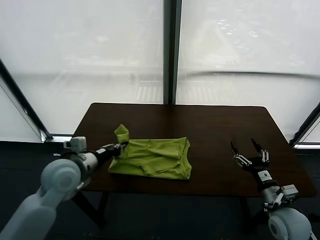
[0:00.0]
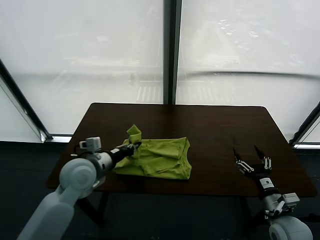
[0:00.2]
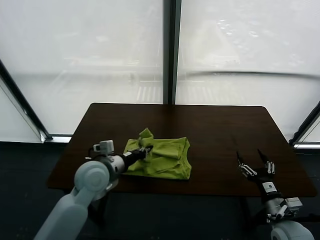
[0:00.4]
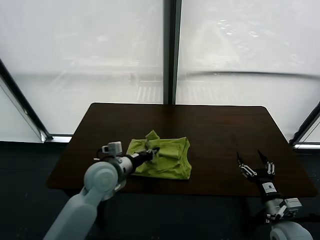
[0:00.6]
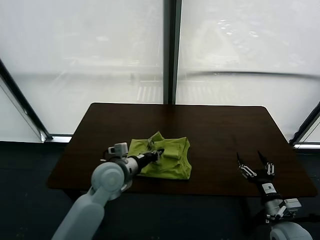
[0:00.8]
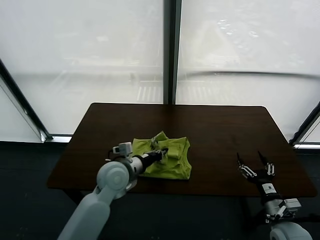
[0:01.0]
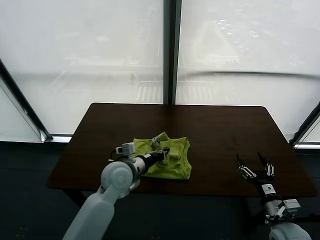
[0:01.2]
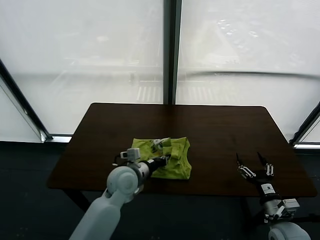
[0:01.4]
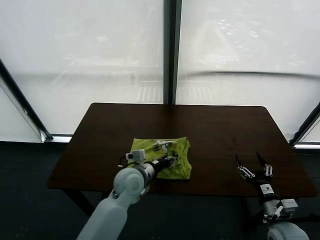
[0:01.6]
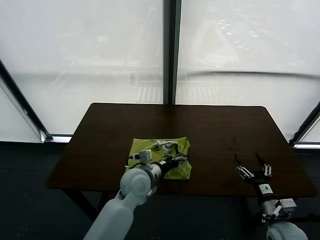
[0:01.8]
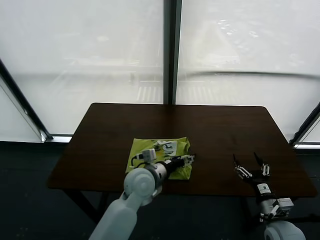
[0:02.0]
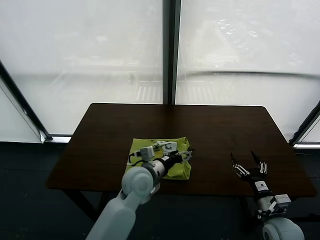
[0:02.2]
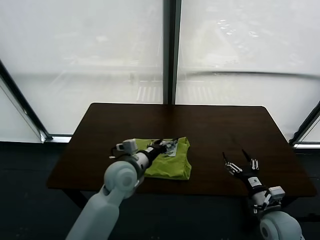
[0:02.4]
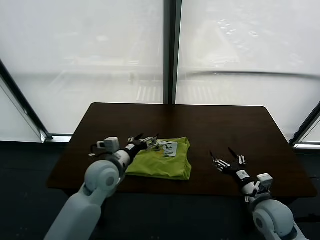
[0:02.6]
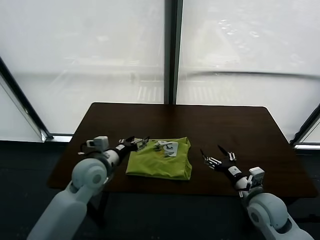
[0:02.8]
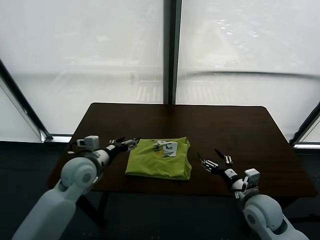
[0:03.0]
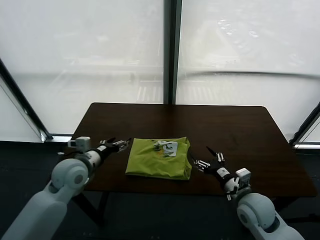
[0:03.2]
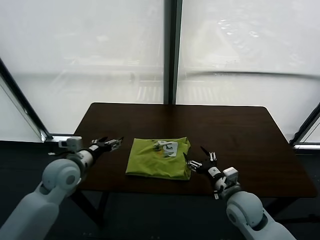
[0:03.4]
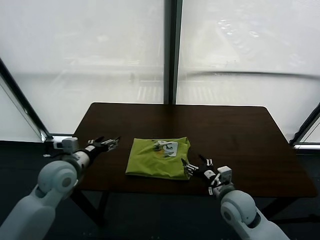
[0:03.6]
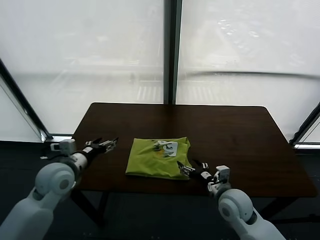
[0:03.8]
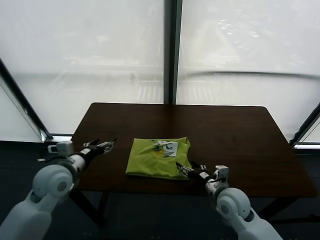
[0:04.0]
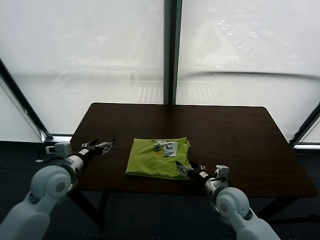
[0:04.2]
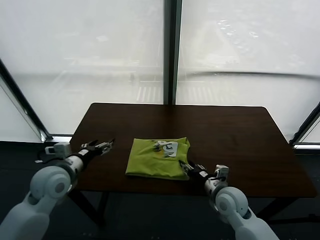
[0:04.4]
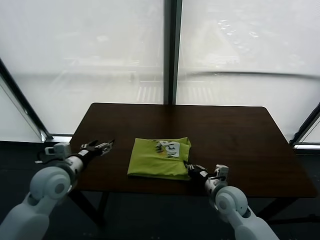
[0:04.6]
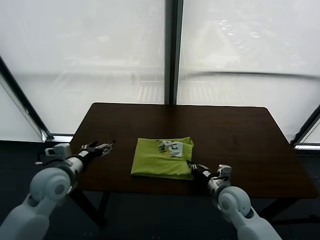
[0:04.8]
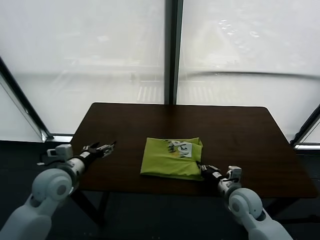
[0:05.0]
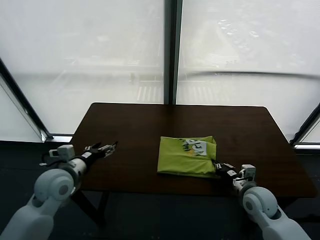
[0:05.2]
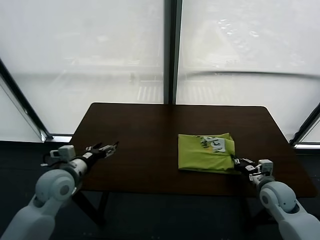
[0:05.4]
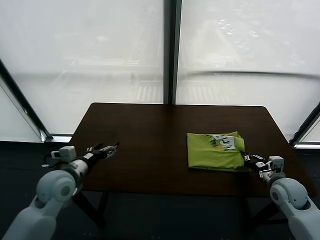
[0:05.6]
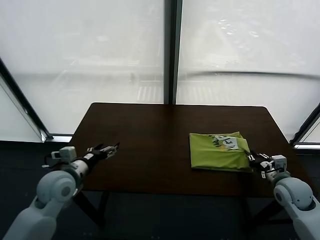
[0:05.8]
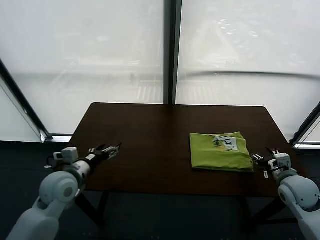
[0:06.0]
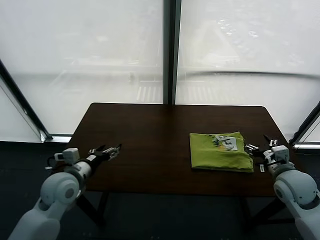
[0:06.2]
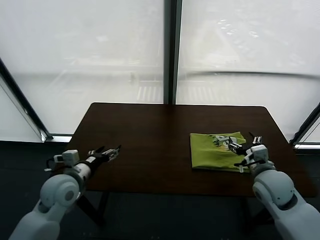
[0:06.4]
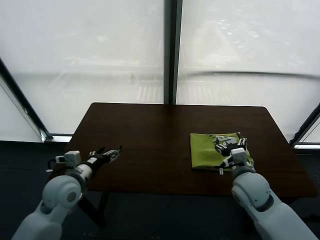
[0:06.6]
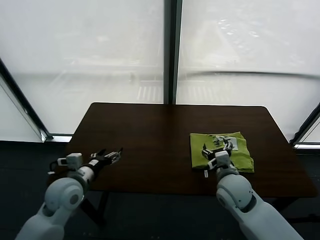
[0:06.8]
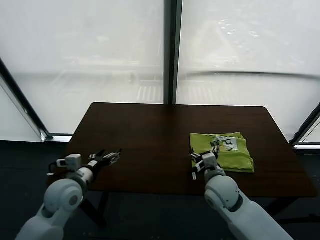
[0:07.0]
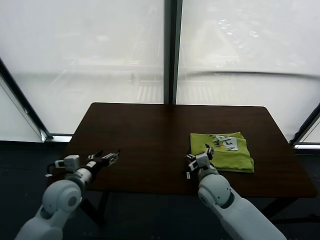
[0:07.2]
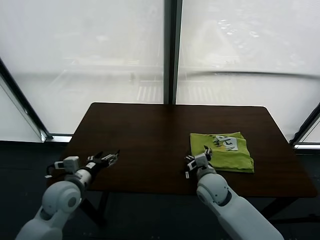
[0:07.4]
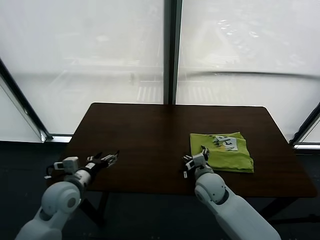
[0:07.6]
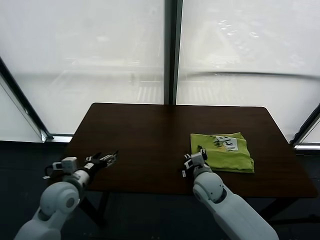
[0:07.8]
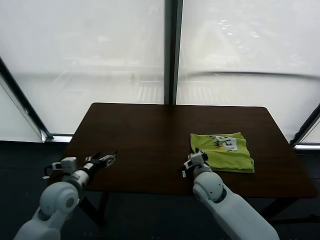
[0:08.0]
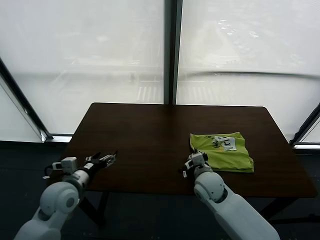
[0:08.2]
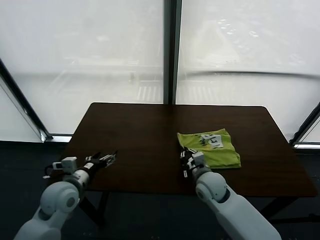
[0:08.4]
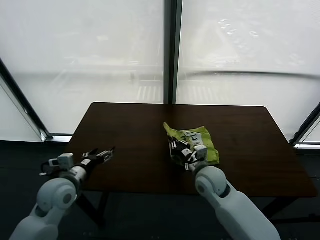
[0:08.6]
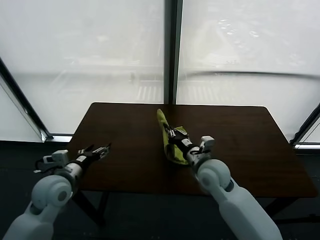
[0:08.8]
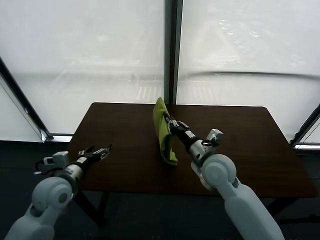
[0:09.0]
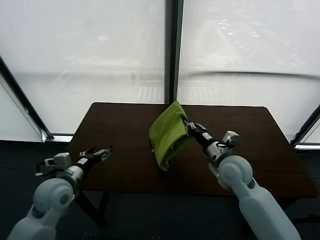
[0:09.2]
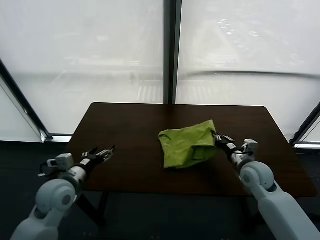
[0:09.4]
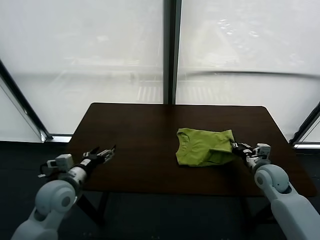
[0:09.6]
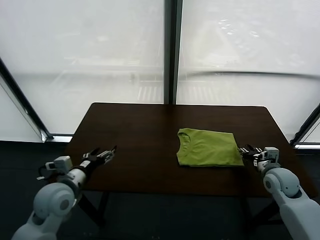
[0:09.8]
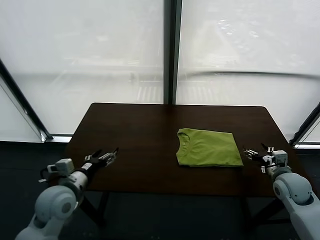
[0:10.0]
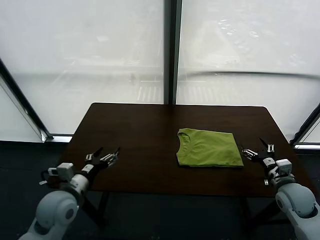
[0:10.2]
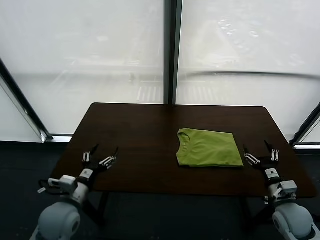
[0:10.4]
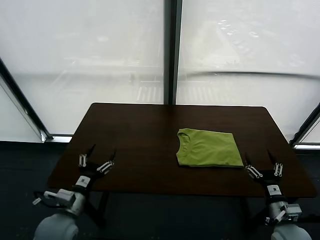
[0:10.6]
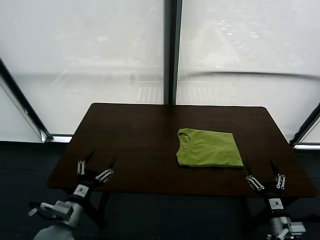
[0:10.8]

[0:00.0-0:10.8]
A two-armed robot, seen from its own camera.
Task of the whole recording: fold and organize the clothes.
Step, 0:00.0 to 0:02.0: use the left gripper to drag the left edge of the fabric to the left and folds it over the right edge.
Step, 0:02.4 to 0:06.0: Drag the clothes to the center of the table.
Step, 0:06.2 to 0:09.8: Flip the folded clothes over with right gripper.
0:00.0 to 0:01.6: The left gripper goes roughly 20 cm to the right and downward, and opens.
0:01.6 to 0:03.0: The right gripper heads to the left, forward and upward, covering approximately 10 cm. Meanwhile the left gripper moves to the left and upward, about 15 cm, and opens.
0:03.0 to 0:04.6: The grippers both shift to the left by roughly 5 cm. The right gripper closes.
0:04.6 to 0:06.2: The right gripper goes some 20 cm to the right and upward, and opens.
0:06.2 to 0:07.8: The right gripper travels to the left and downward by roughly 25 cm.
0:07.8 to 0:09.2: The right gripper shifts some 10 cm upward and to the right, and closes.
0:09.2 to 0:10.8: The right gripper travels backward, to the right and downward by about 30 cm, and opens its fingers, while the left gripper is displaced backward and downward by approximately 10 cm.

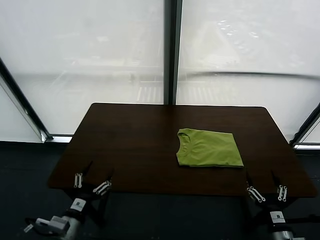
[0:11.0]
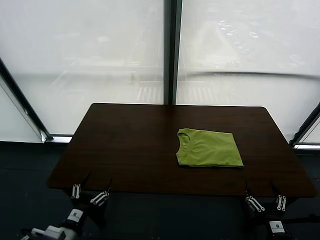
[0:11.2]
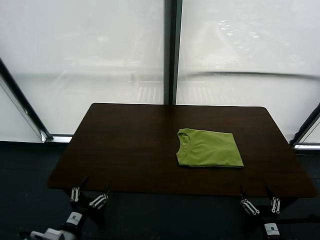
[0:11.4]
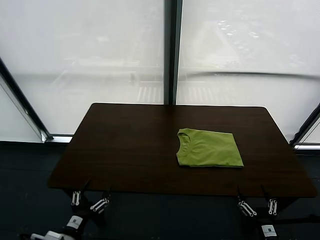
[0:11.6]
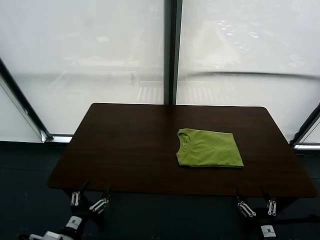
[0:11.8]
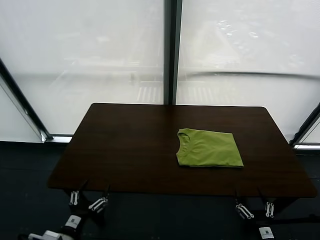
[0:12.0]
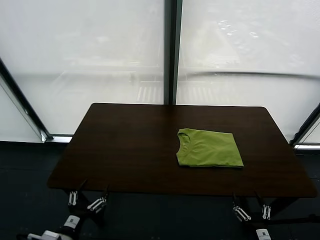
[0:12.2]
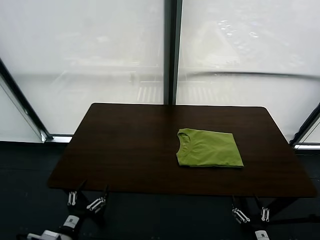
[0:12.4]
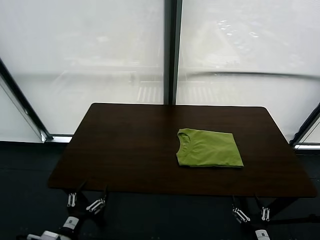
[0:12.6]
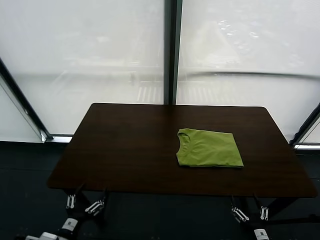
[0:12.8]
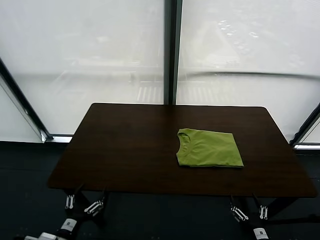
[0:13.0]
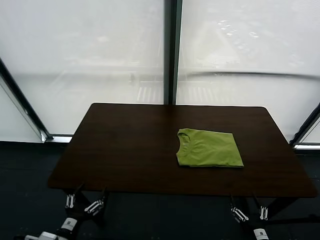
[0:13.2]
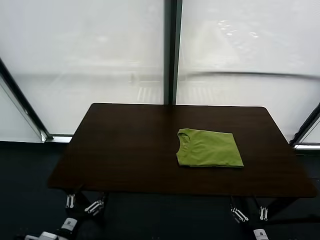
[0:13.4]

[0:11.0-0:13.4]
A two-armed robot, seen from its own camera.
Task of the whole recording: fold and organize the clothes.
0:11.0 to 0:12.2: The right gripper shifts by some 5 cm, while the left gripper is displaced backward by some 5 cm.
0:12.2 to 0:13.4: The grippers make only small movements.

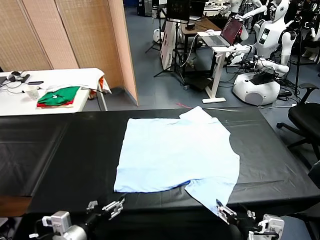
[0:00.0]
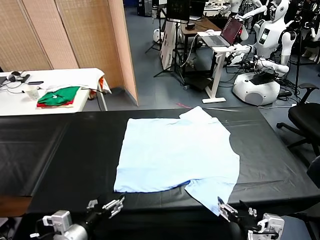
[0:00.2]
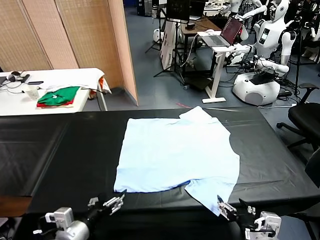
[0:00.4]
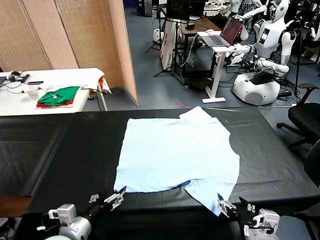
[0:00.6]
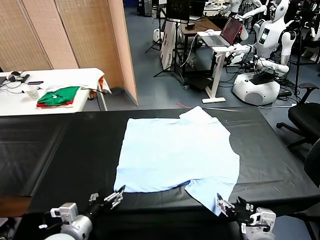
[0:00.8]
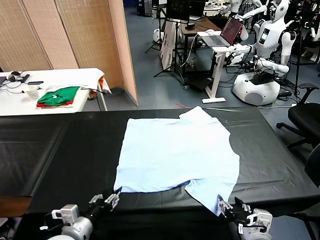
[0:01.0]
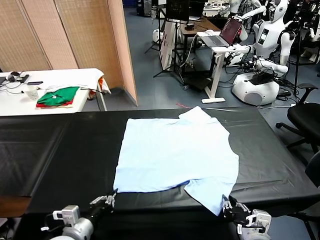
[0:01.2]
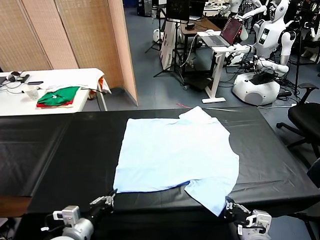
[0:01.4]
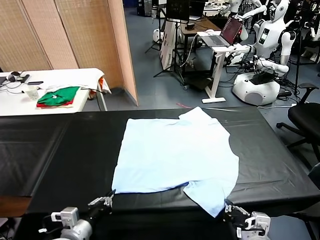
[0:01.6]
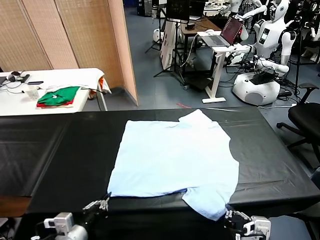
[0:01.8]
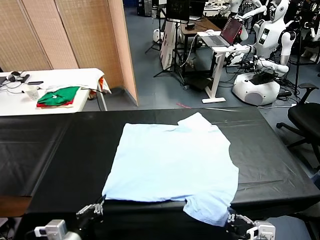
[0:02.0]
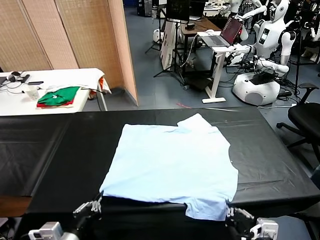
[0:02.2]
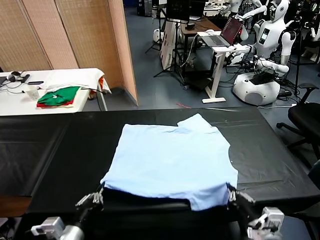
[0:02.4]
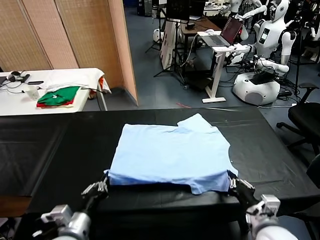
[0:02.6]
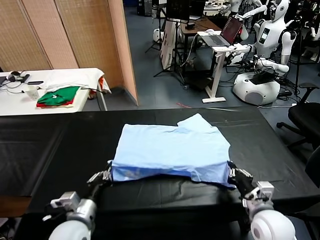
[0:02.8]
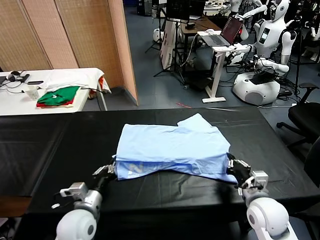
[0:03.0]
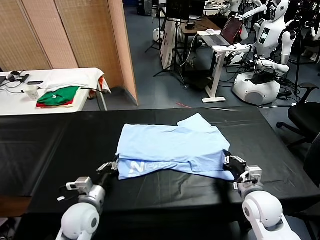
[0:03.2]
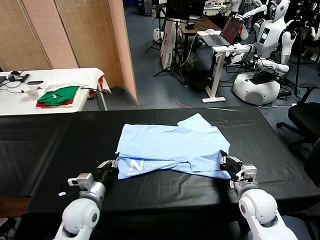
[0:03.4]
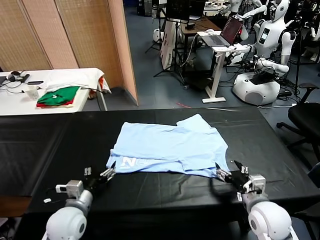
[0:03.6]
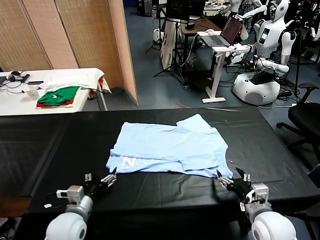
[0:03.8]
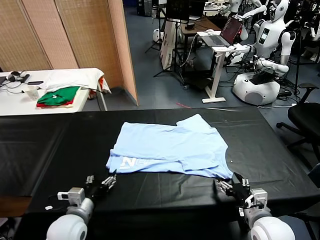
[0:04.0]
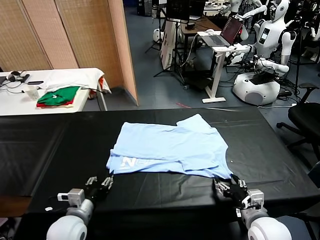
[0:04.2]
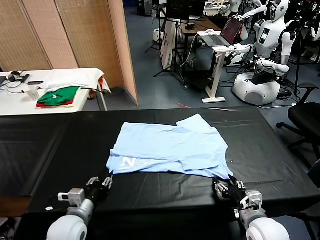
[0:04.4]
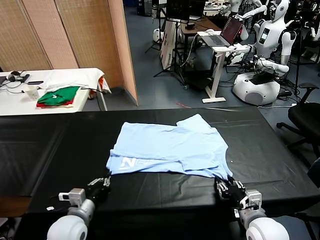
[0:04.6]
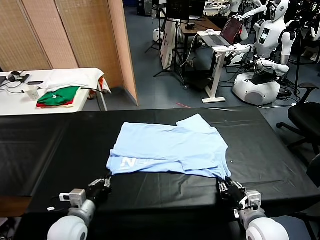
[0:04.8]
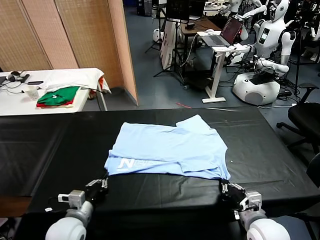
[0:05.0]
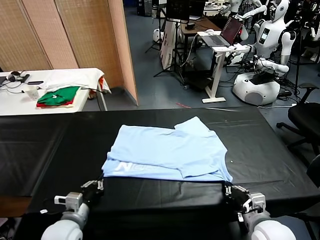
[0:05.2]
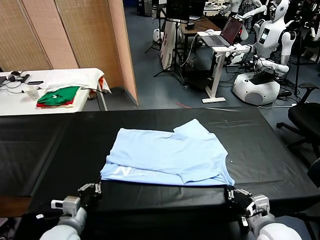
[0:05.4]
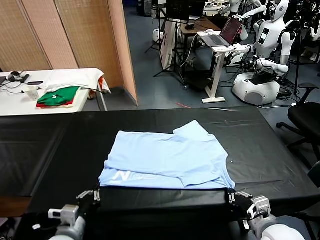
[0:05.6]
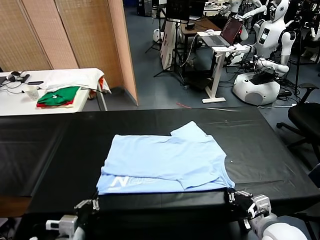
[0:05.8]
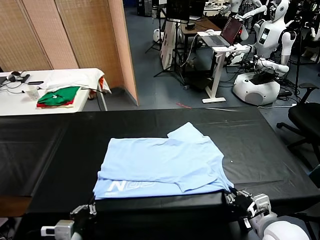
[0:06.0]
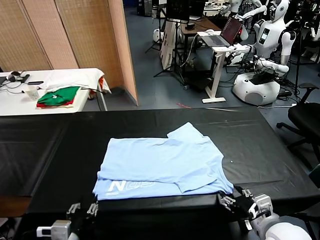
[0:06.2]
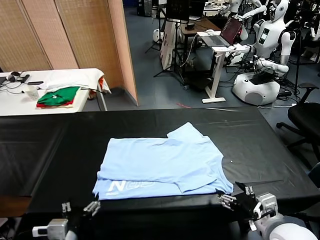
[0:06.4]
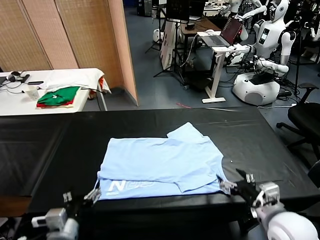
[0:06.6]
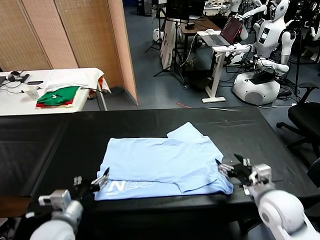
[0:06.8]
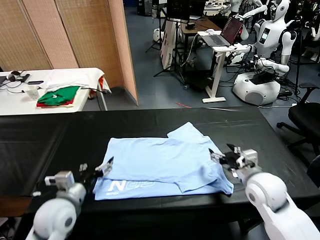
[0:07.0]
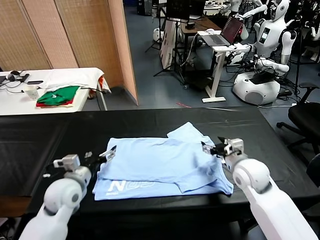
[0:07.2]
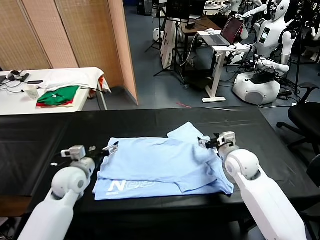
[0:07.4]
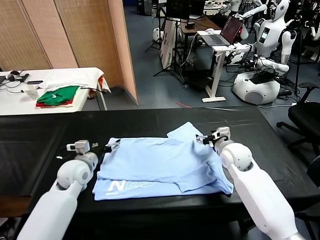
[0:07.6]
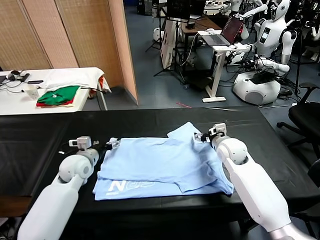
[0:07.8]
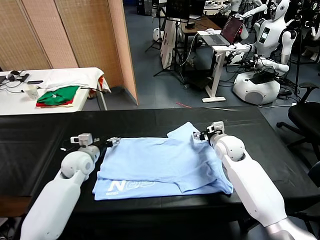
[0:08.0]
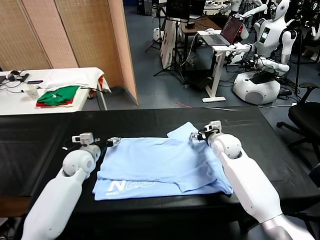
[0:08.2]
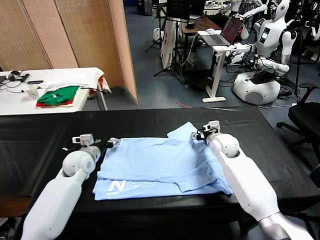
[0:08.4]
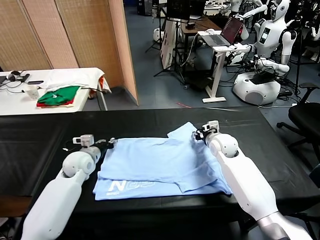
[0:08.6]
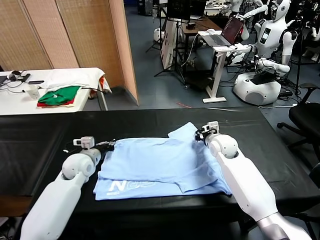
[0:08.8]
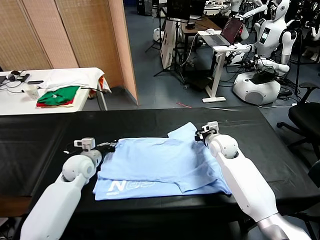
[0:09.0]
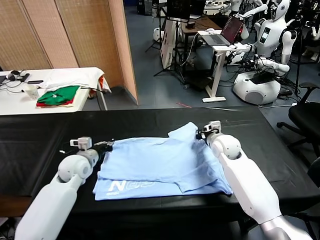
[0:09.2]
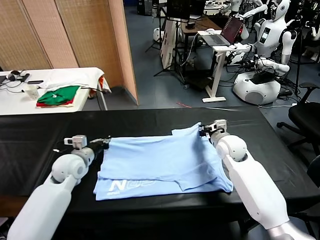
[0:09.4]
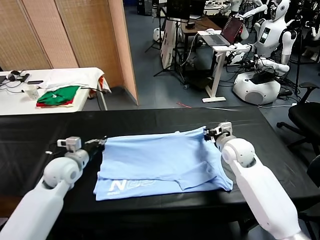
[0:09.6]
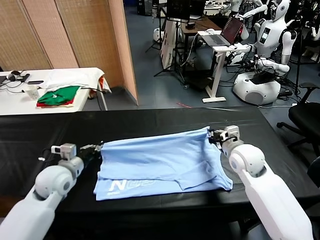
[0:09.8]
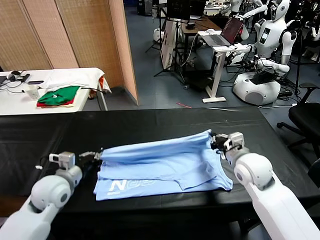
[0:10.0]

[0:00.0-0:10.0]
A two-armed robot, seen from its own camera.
Task of the whole recording: fold and organize the clothes.
Step, 0:00.0 to 0:01.4: use both grippers simultaneously to clamp the lower edge of the clothing fabric.
Step, 0:01.6 to 0:03.4: use both grippers to drag the lower edge of the fabric forward and fold it over the upper edge.
Step, 0:03.6 to 0:06.2: Drag the clothes downward with both gripper.
Step, 0:06.4 to 0:08.8: use both grippers simultaneously to clamp the upper edge of the clothing fabric.
0:01.4 to 0:02.8: The right gripper shifts about 15 cm forward. Meanwhile the left gripper is displaced forward by approximately 5 cm.
0:02.8 to 0:04.2: The left gripper opens its fingers; the right gripper is displaced backward by some 5 cm, and opens its fingers.
0:04.2 to 0:05.8: The right gripper shifts about 5 cm upward, and closes; the left gripper goes some 10 cm backward, and closes up.
0:05.8 to 0:07.2: The two grippers go roughly 20 cm forward. The right gripper opens up; the left gripper opens its fingers.
0:07.2 to 0:08.6: Both grippers travel together forward, about 10 cm.
0:08.6 to 0:10.0: The two grippers go some 15 cm backward. The right gripper closes, while the left gripper closes up.
